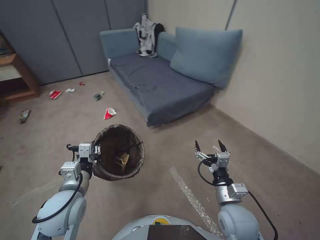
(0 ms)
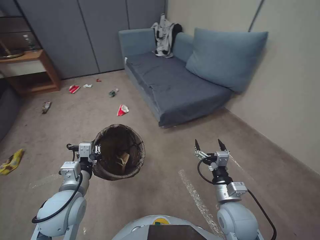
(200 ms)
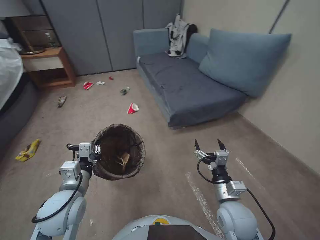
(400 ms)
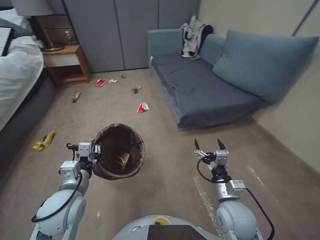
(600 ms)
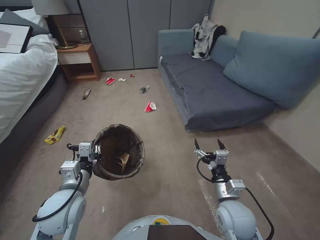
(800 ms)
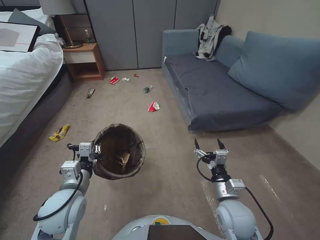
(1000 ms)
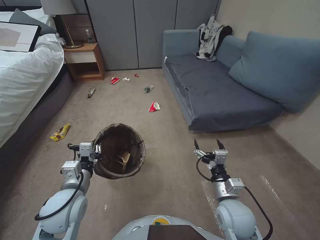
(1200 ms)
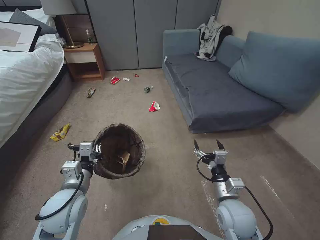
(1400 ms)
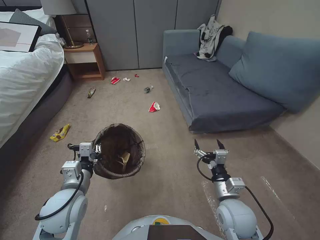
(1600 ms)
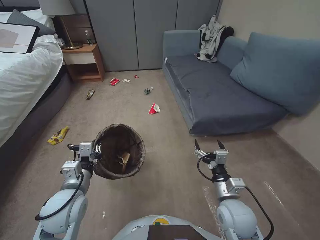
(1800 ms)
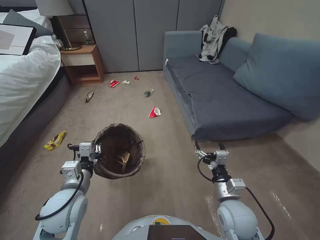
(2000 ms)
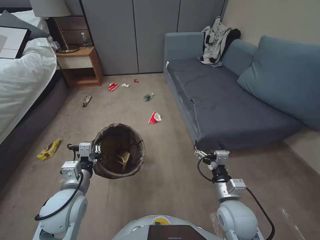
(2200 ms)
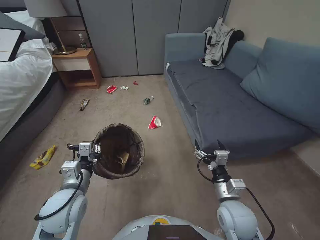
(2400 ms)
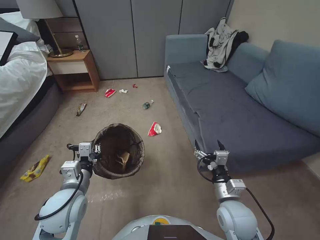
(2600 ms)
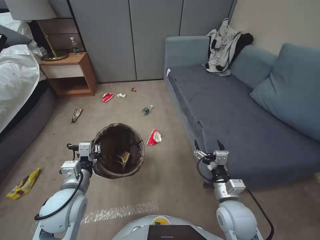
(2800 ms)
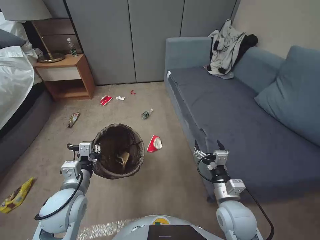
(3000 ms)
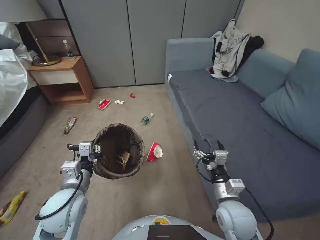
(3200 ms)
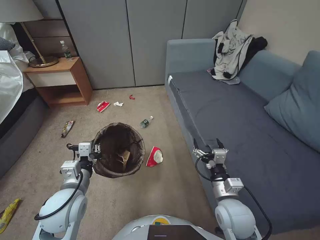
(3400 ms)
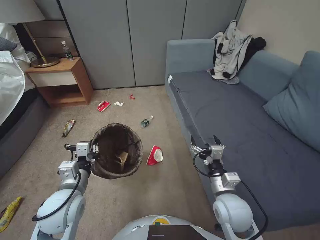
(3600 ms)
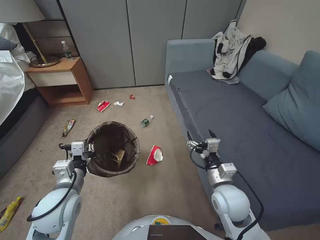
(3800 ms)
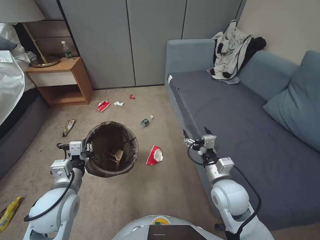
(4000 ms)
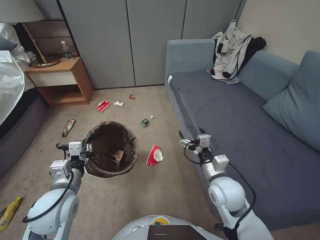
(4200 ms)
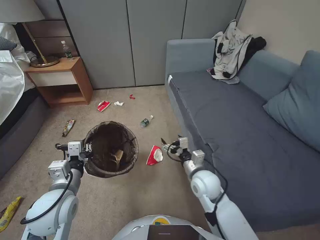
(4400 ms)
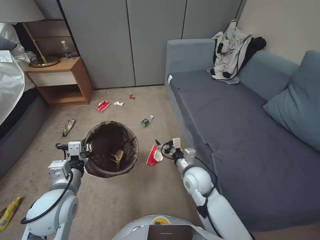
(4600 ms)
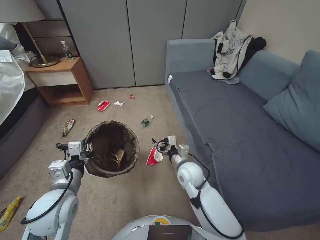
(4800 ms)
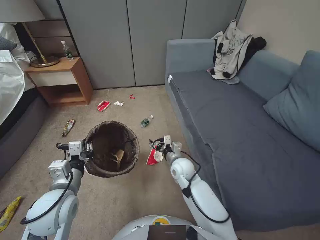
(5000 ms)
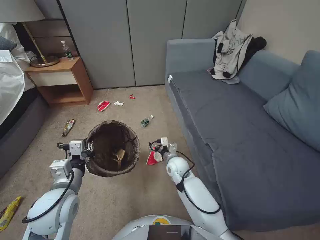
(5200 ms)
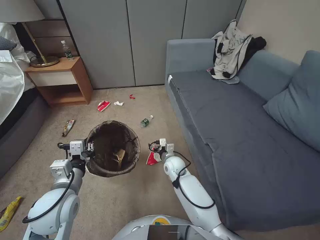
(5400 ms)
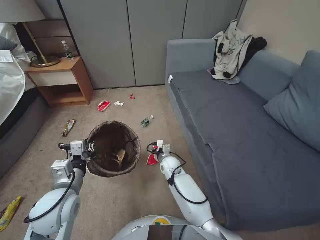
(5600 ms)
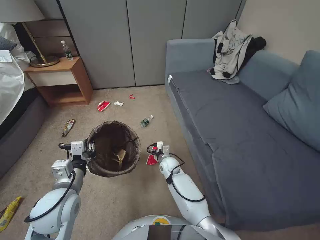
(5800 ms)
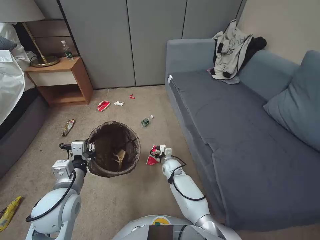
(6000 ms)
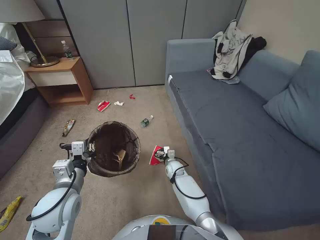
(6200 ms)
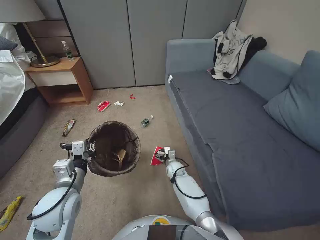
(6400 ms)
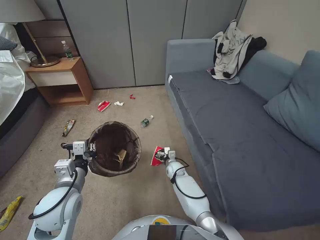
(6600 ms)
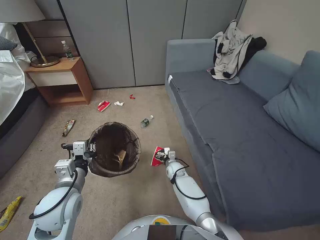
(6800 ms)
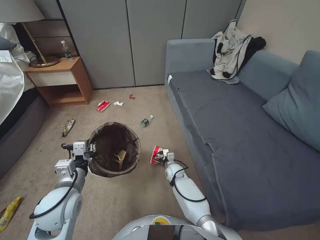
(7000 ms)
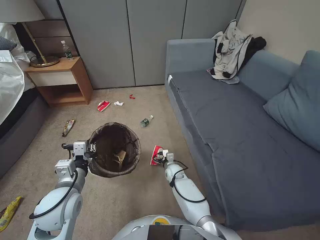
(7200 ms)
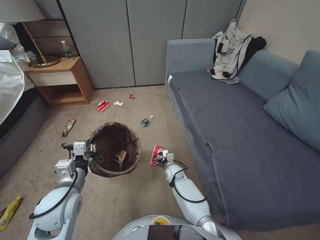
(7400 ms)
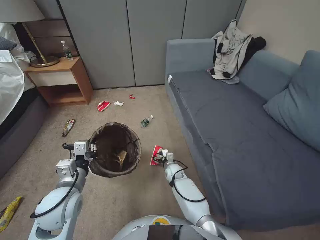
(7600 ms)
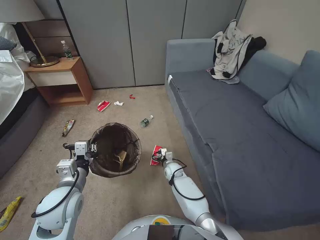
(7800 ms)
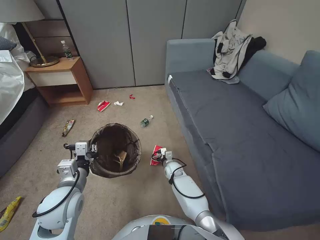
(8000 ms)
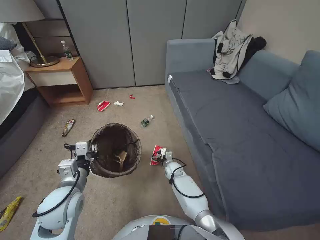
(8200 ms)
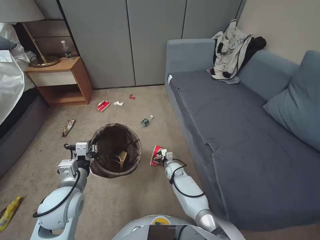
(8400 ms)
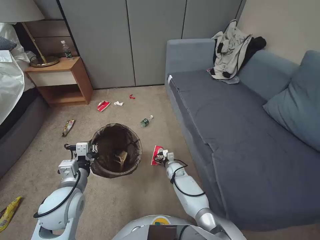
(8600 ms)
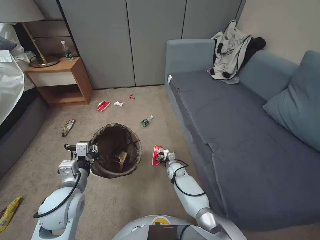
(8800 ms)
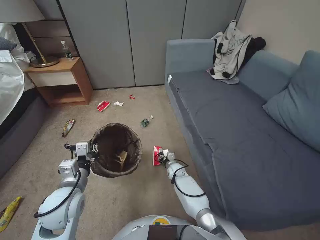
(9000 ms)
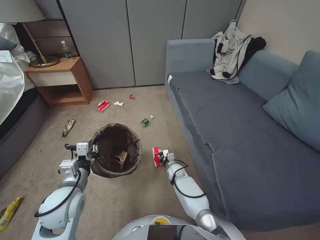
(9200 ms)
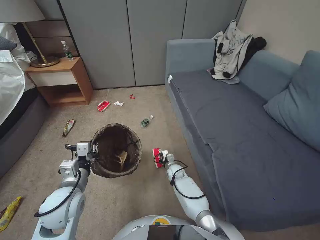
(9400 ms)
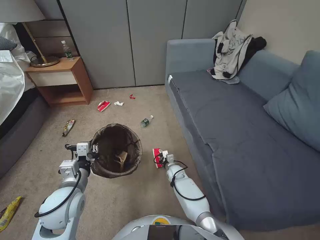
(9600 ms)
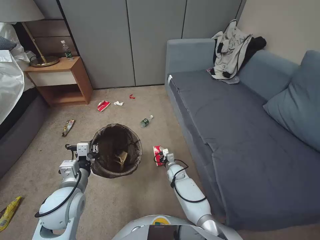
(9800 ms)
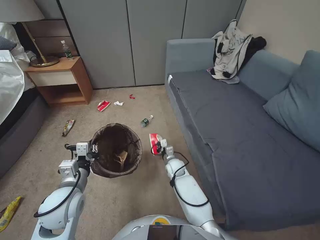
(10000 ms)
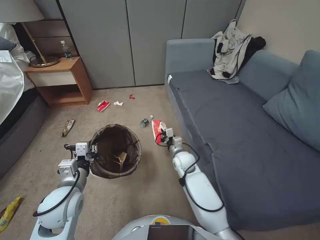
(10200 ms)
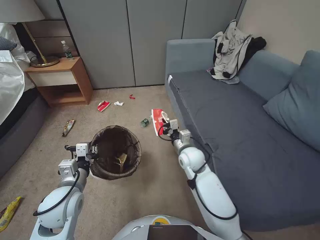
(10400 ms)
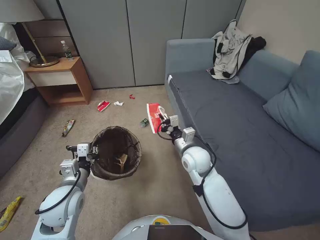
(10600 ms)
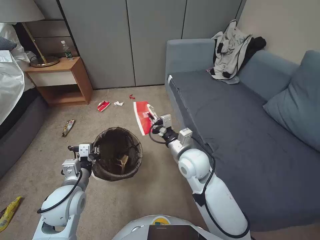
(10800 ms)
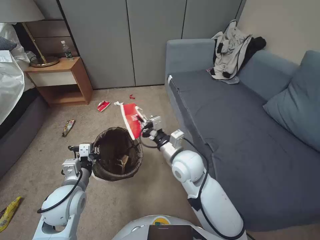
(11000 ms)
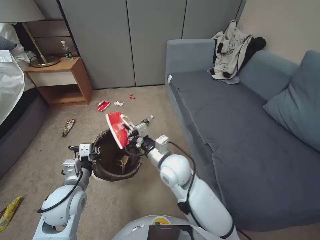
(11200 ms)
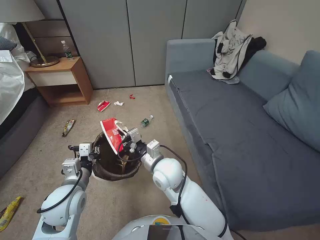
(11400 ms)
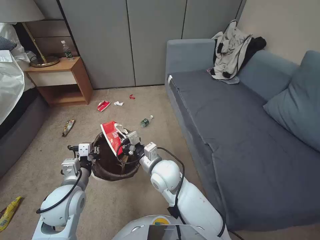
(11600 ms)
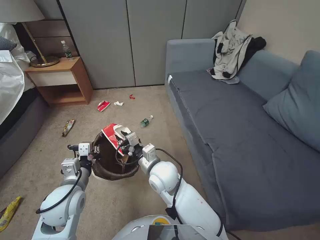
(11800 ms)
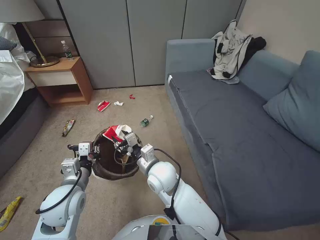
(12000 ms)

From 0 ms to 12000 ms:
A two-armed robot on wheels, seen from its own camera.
Task of the whole recording: Pick up the trash bin, then pick up the garbage from the floor and place it into the trash bin.
From 3000 ms to 4400 ms: The right gripper shifts about 10 cm forward.
From 4400 ms to 6000 ms: The right gripper goes approximately 25 cm downward, forward and to the left.
From 6000 ms to 7600 ms: The right gripper moves about 5 cm.
From 7600 ms to 9000 ms: The right gripper closes its fingers.
From 9000 ms to 10400 ms: The right gripper shifts approximately 20 cm upward, and closes its fingers.
From 10400 ms to 12000 ms: The right gripper heads to the left, backward and upward, covering some 15 cm, and opens.

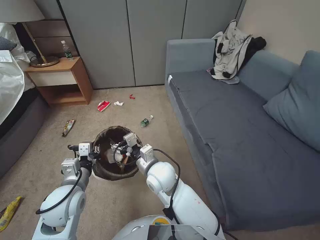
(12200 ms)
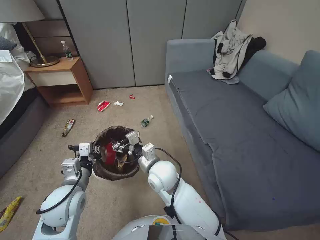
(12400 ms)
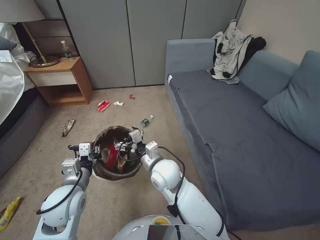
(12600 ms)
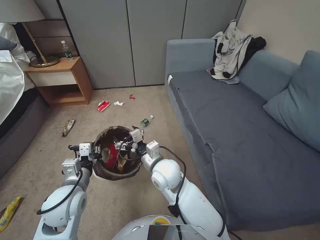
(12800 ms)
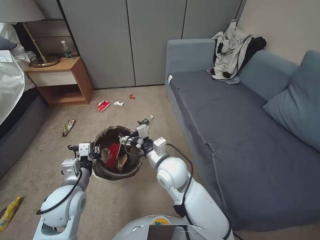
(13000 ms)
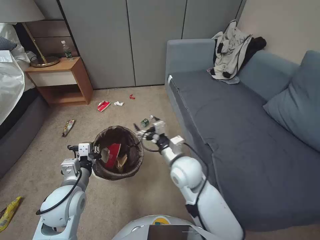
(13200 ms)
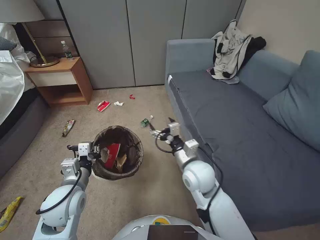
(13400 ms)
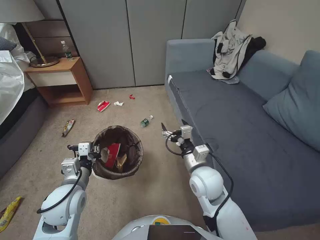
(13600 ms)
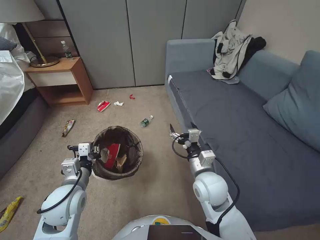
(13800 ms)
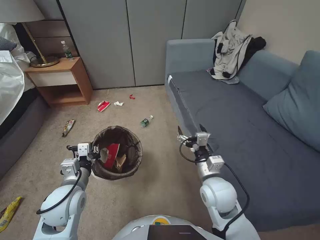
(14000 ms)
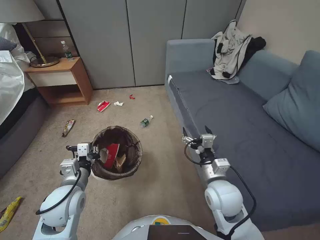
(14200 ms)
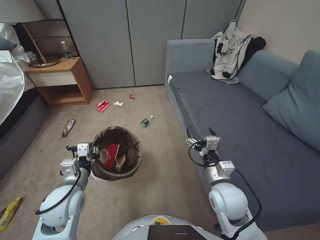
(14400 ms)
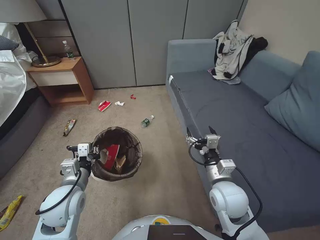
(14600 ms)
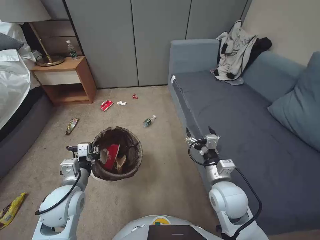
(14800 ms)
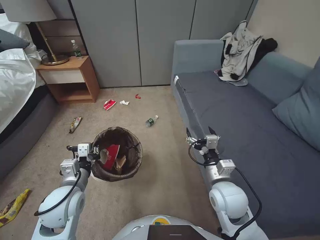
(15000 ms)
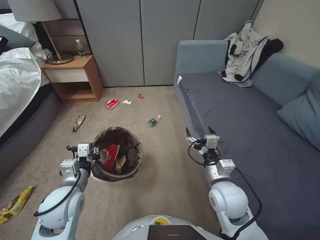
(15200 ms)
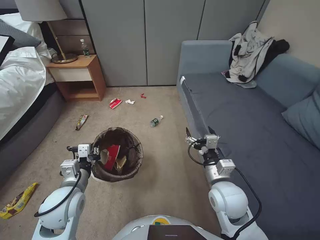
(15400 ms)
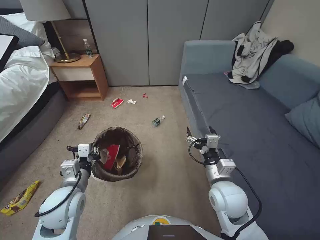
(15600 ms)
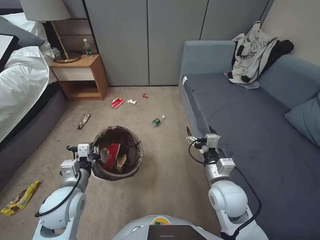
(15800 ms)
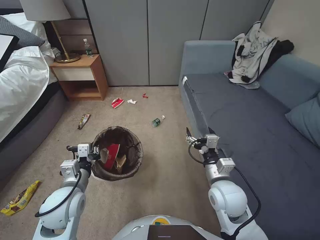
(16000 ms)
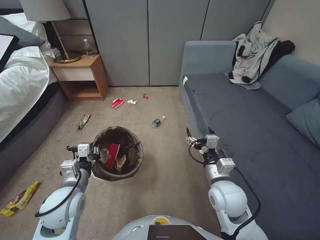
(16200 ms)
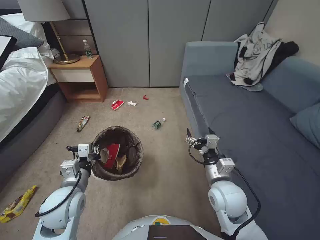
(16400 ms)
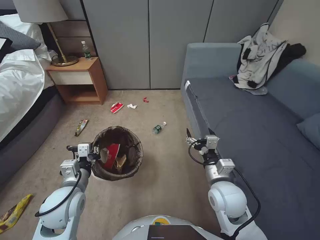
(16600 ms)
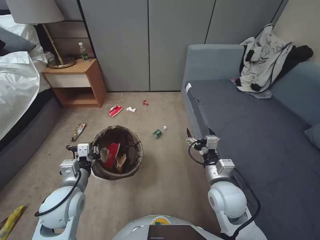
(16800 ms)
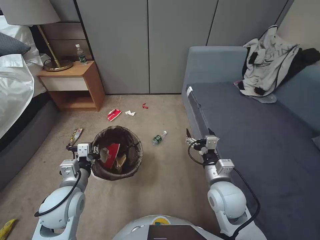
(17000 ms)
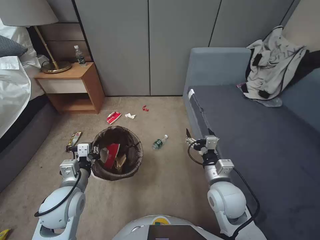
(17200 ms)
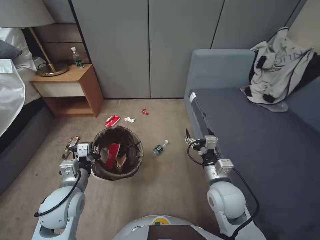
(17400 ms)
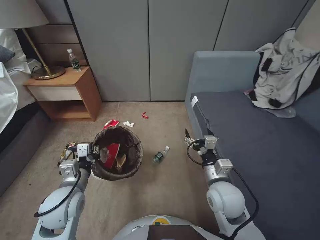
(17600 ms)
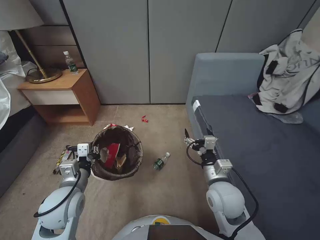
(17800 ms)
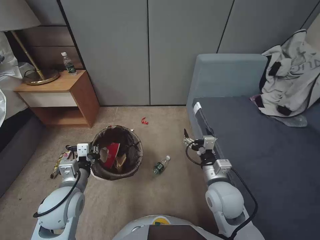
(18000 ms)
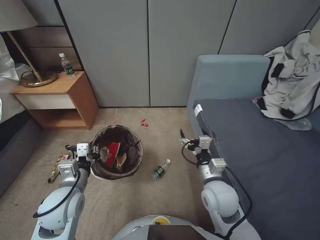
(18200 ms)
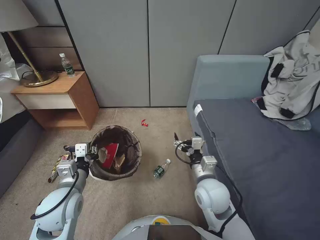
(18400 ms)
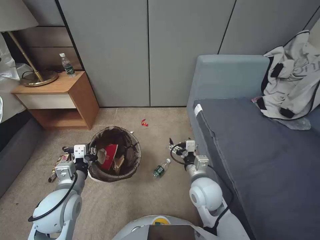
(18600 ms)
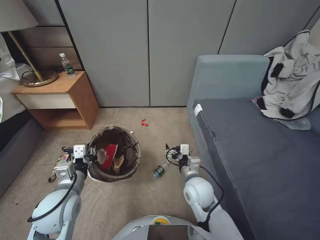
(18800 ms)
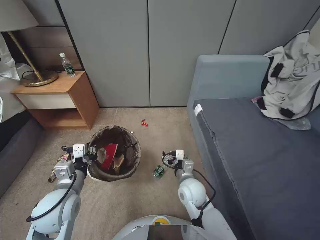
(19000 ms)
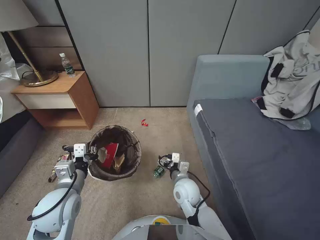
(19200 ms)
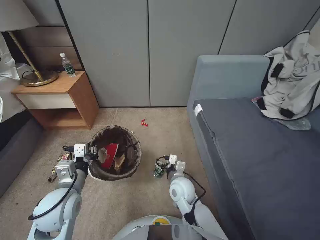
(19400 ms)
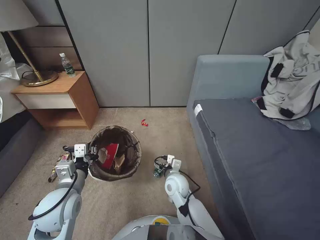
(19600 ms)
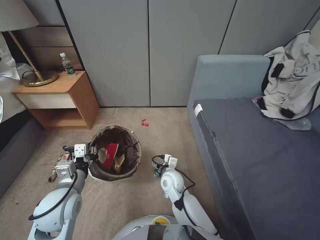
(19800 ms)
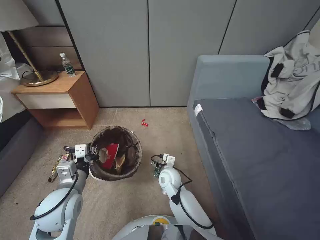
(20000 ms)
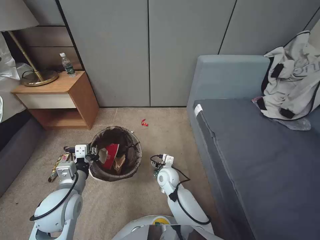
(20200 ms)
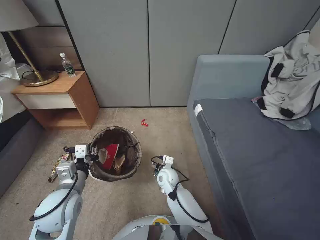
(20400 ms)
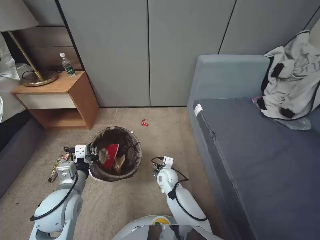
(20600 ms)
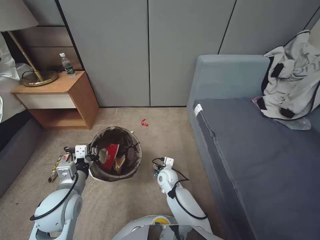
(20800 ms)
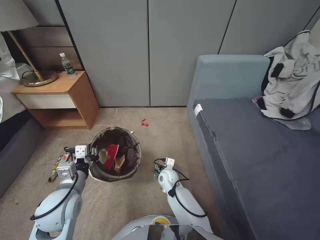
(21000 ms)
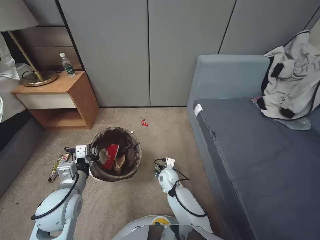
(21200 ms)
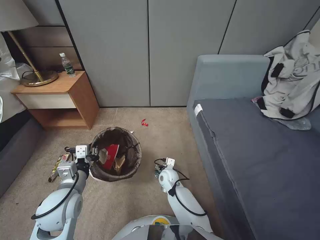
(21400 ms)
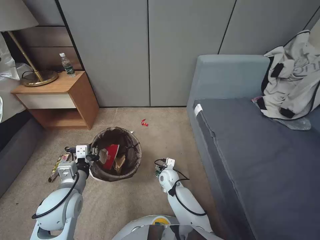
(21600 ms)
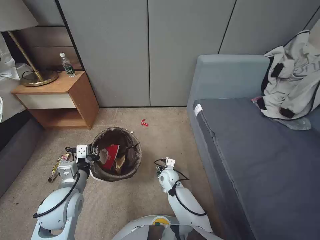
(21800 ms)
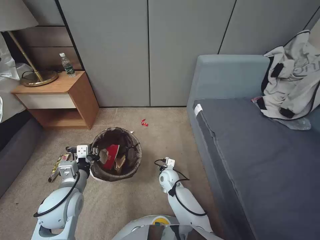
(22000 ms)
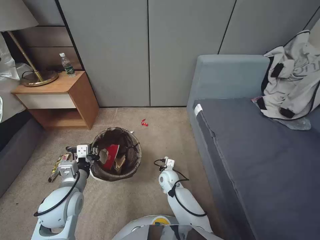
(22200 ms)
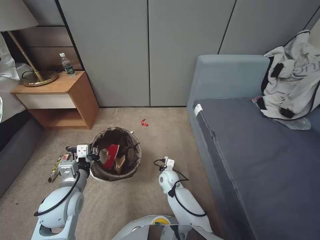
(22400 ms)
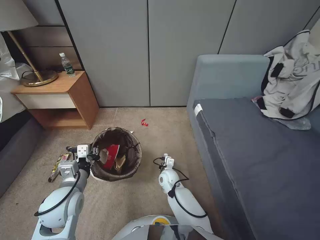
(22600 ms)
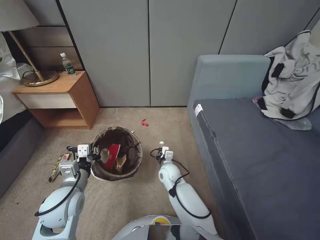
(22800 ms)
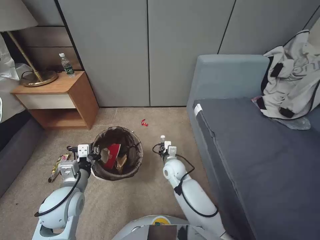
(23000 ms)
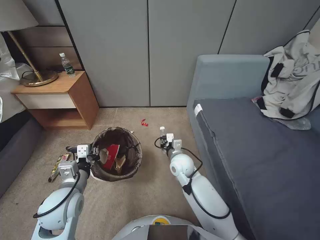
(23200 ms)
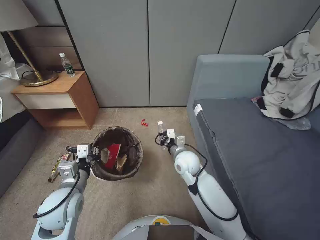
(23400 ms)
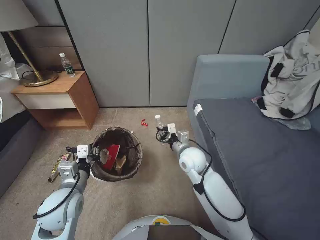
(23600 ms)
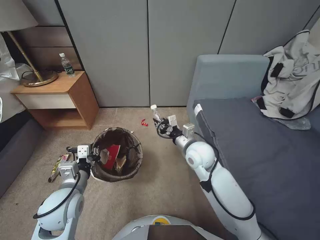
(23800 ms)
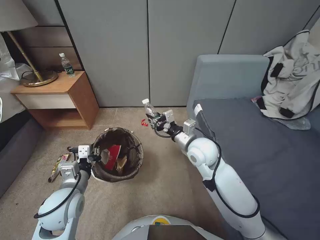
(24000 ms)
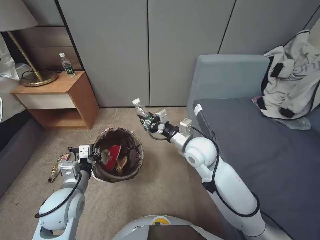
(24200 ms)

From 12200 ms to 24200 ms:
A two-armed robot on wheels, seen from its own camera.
Task of the whole recording: Pick up the trash bin, then pick up the garbage from the floor and place it into the trash bin.
From 12200 ms to 13800 ms: The right gripper is displaced to the right by approximately 15 cm, and opens its fingers.
From 13800 ms to 15200 ms: The right gripper moves to the right, roughly 5 cm.
From 15200 ms to 16600 ms: Neither gripper changes place.
From 18200 ms to 19800 ms: The right gripper goes some 20 cm to the left, downward and forward.
From 19800 ms to 21200 ms: The right gripper travels downward by about 10 cm.
From 22600 ms to 24200 ms: The right gripper is displaced upward by approximately 30 cm.
